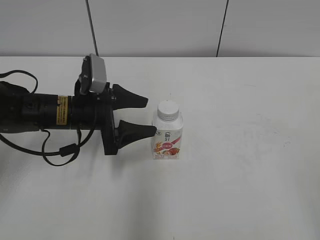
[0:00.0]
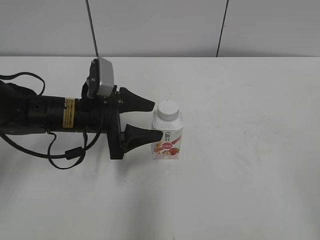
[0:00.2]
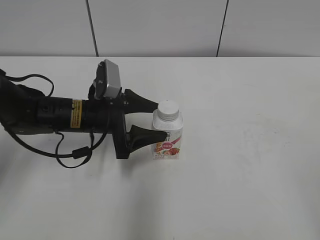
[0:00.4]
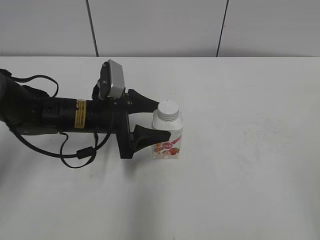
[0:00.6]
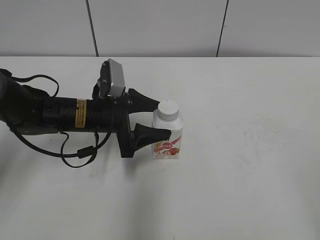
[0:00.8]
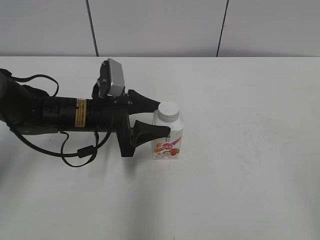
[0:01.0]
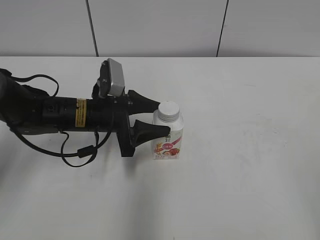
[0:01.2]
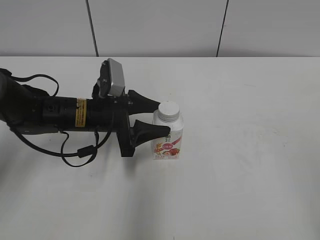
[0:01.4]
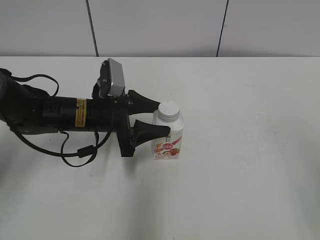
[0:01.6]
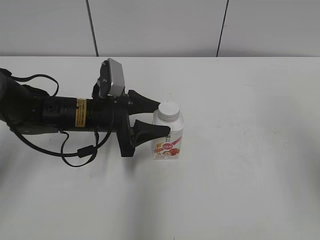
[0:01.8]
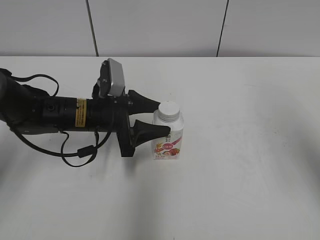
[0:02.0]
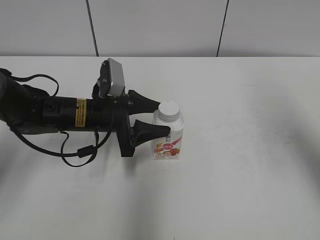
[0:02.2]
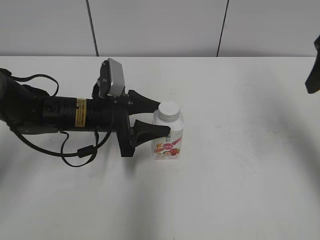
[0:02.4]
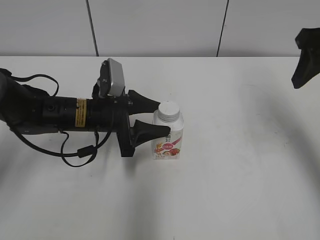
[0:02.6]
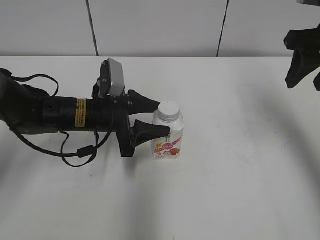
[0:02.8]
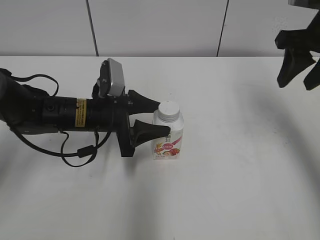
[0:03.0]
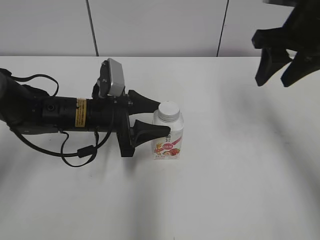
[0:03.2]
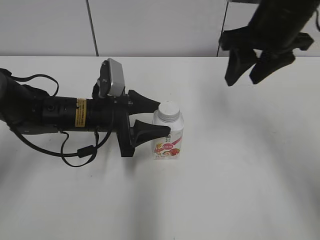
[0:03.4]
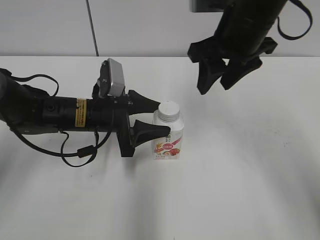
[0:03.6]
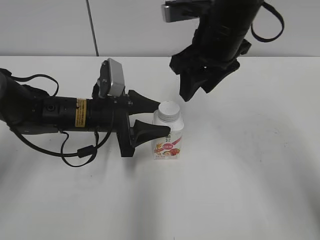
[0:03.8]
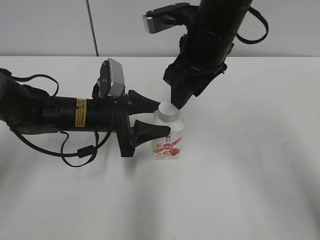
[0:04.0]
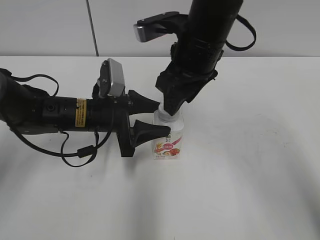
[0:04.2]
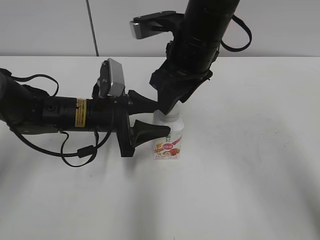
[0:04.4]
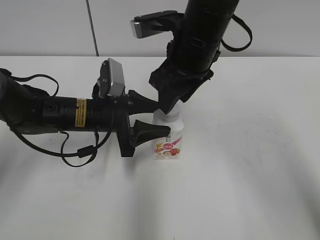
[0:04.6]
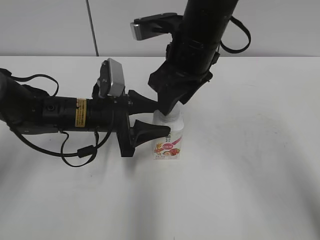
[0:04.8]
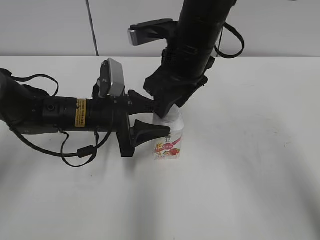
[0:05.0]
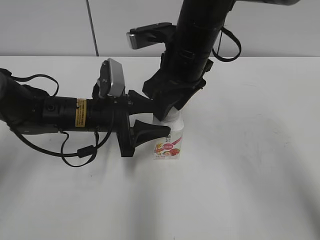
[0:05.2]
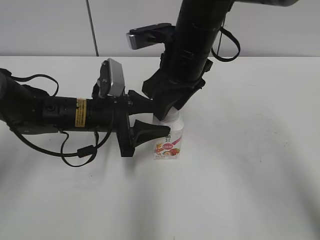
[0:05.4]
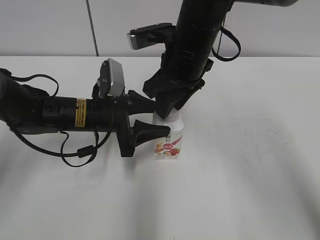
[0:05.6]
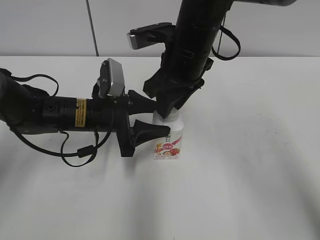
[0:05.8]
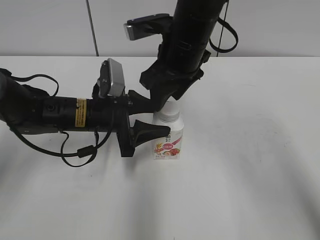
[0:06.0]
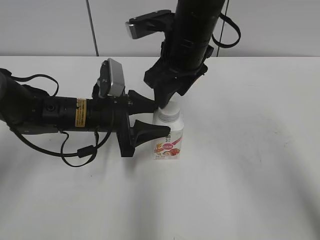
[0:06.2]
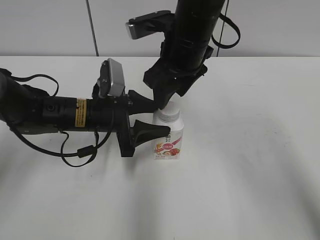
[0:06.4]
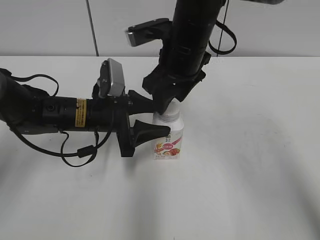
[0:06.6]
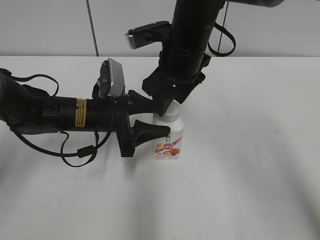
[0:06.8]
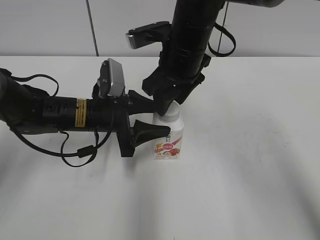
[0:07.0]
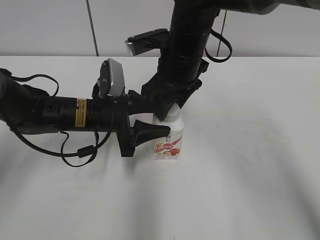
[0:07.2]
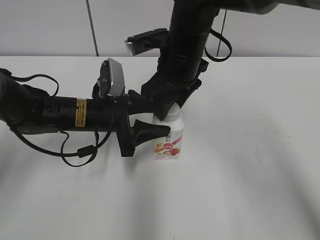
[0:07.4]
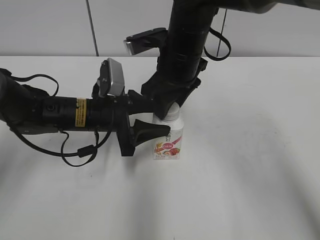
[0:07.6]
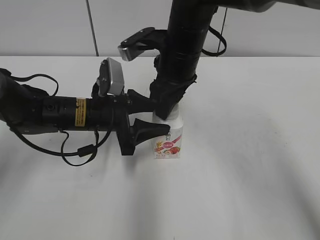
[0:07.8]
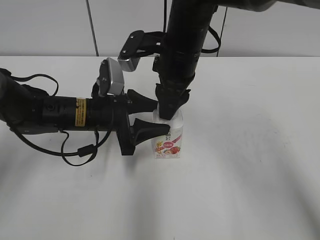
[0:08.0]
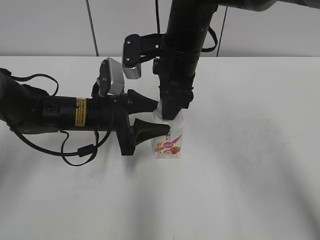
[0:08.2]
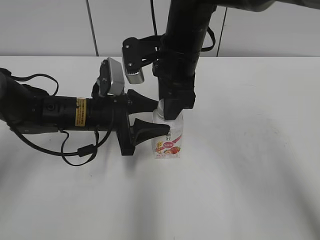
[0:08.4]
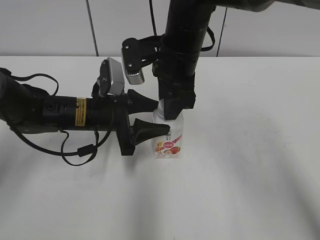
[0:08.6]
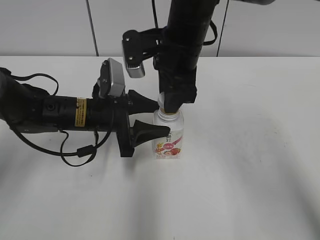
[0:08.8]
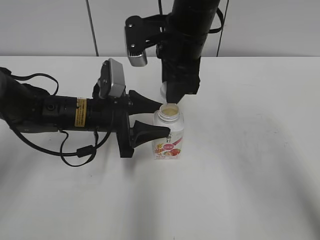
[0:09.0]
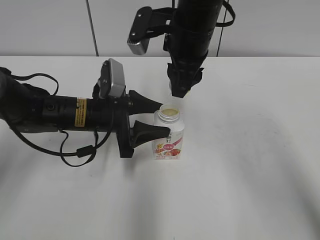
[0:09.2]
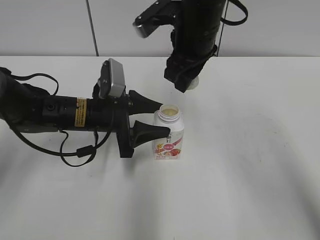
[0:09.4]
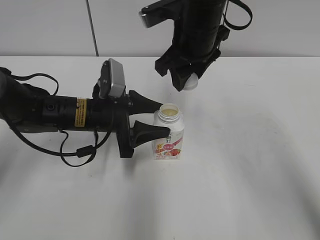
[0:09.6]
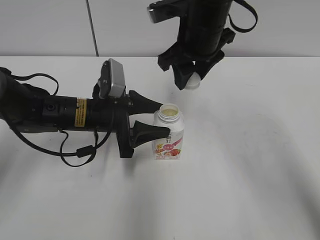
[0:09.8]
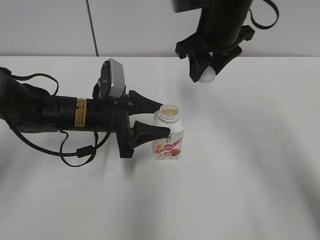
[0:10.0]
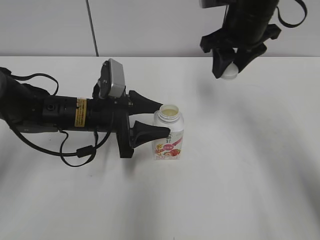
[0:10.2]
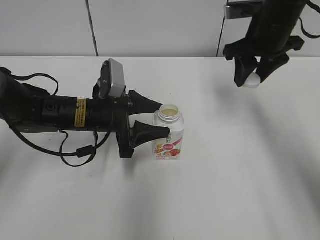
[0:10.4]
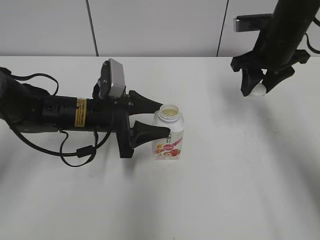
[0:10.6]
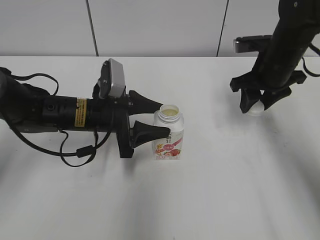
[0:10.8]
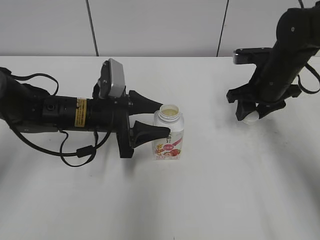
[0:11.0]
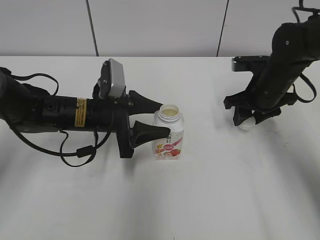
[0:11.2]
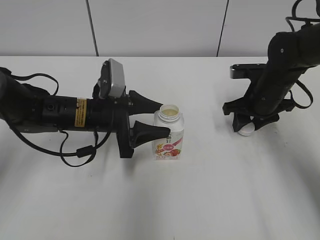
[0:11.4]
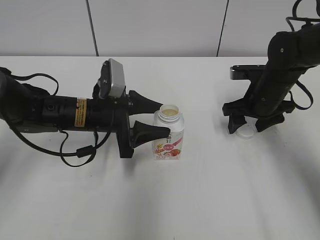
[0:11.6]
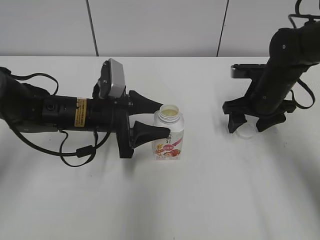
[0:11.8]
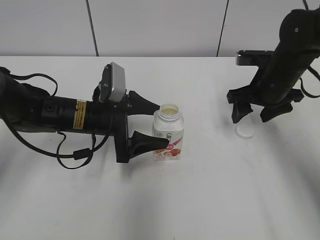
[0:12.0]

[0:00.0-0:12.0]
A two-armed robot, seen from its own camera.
Step, 0:09.0 to 0:11.4: Place the bottle cap on the right.
0:00.0 to 0:01.6: The right gripper goes approximately 10 cm forward and upward. The left gripper closes up.
0:01.6 to 0:03.0: The right gripper moves forward, roughly 30 cm, and closes up.
0:03.0 to 0:04.4: The right gripper moves to the left, about 20 cm.
0:04.4 to 0:07.6: There are only small adjustments of the grippers.
0:09.0 to 0:10.4: The right gripper moves to the right, roughly 15 cm.
0:10.4 to 0:12.0: The left gripper opens; the right gripper heads downward, covering about 10 cm, and opens up.

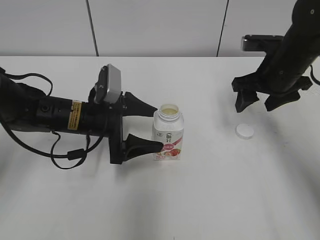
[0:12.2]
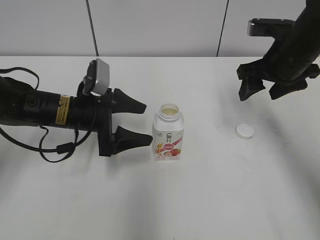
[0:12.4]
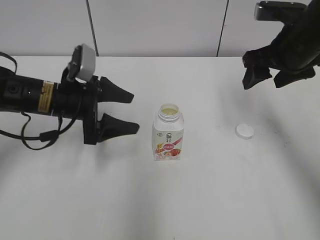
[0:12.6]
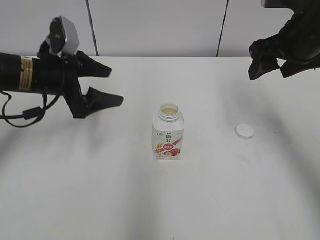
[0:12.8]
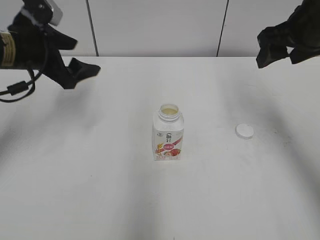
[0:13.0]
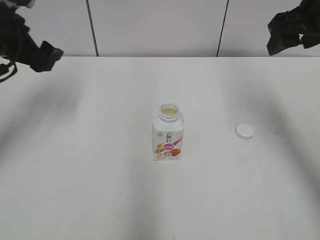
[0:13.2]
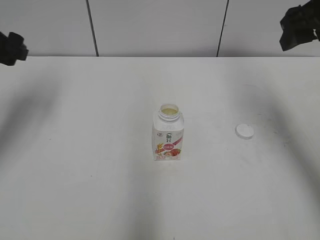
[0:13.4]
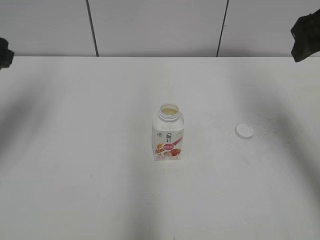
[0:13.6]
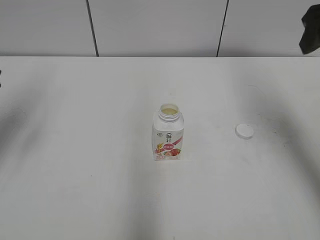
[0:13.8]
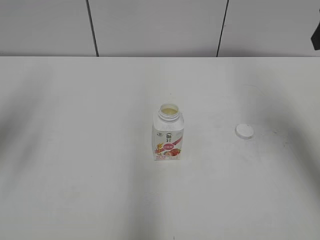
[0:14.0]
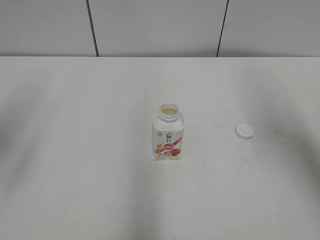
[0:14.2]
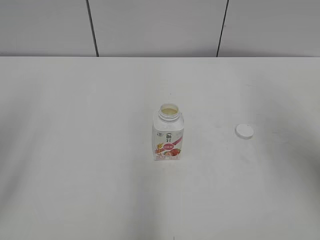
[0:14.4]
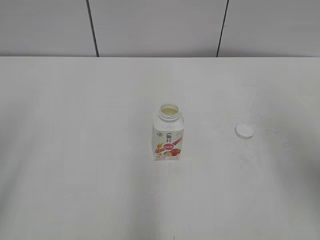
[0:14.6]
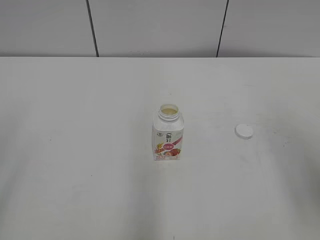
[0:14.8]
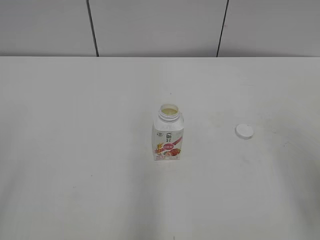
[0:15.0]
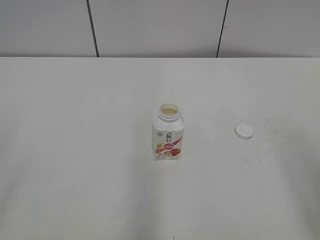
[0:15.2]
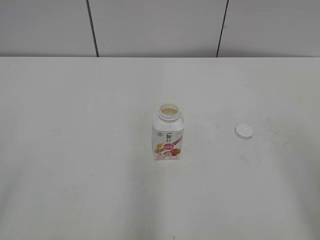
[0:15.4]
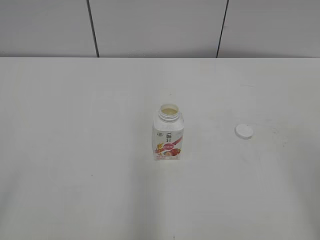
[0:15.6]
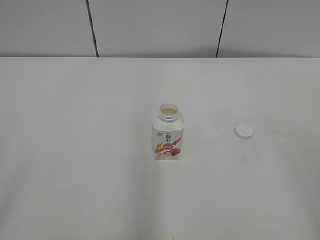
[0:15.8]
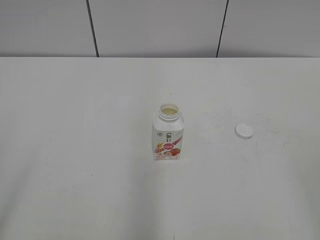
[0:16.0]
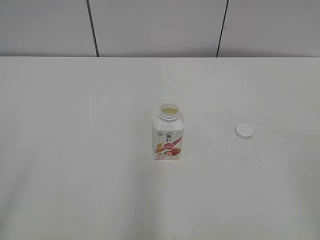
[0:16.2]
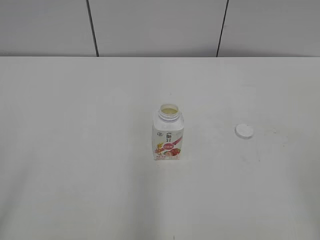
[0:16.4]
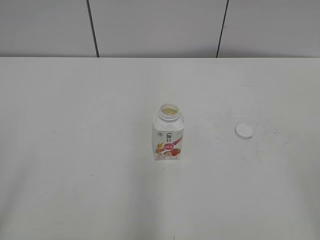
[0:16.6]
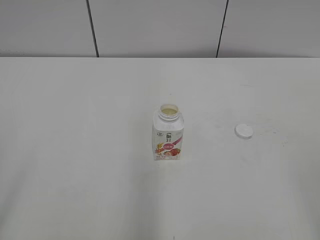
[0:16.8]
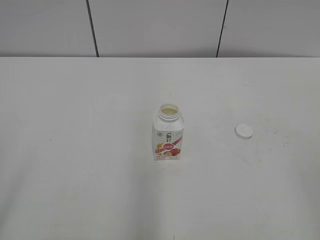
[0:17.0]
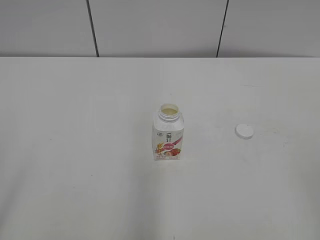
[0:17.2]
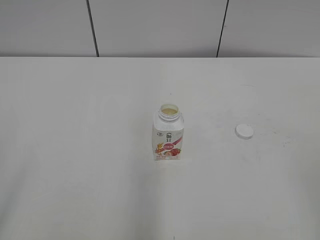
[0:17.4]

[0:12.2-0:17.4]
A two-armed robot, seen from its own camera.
0:12.2 to 0:14.0: The right gripper goes roughly 20 cm upward and backward, while the left gripper is displaced upward and to the left by approximately 25 cm.
0:14.0 to 0:15.6: Both grippers move backward, about 25 cm.
